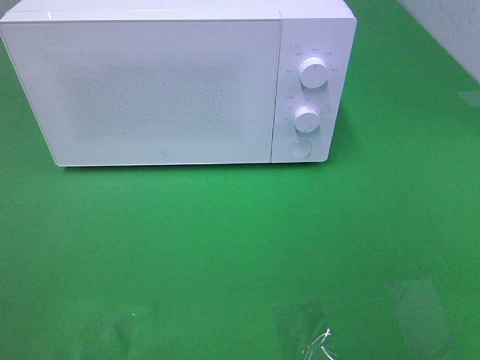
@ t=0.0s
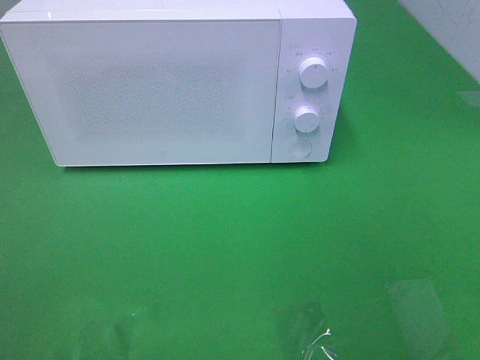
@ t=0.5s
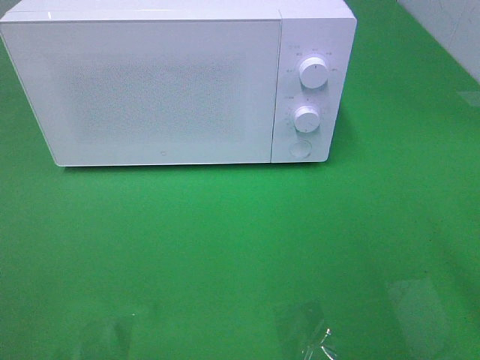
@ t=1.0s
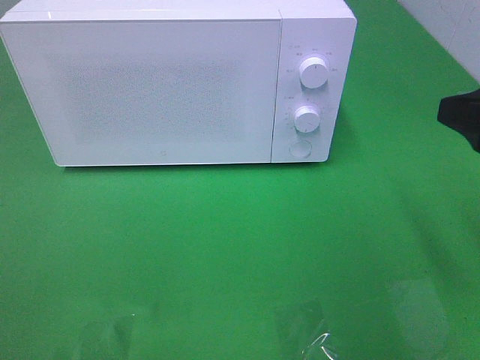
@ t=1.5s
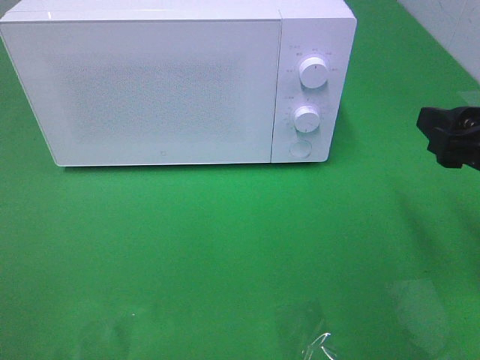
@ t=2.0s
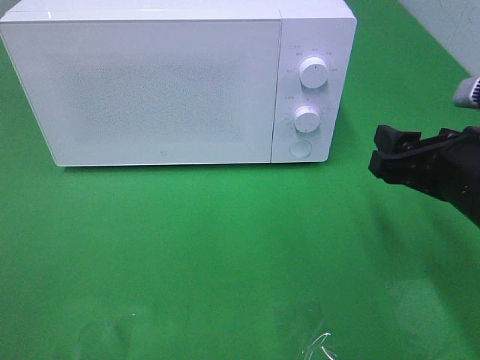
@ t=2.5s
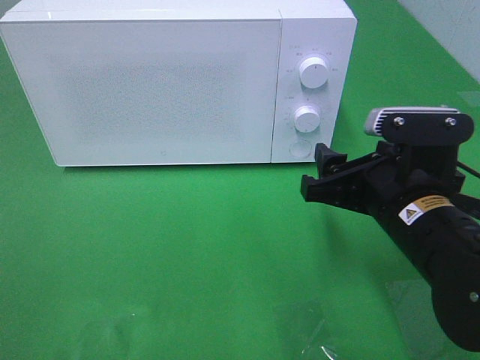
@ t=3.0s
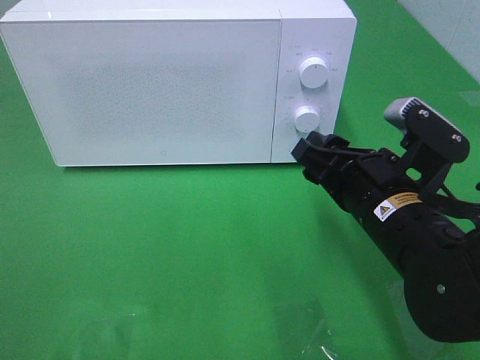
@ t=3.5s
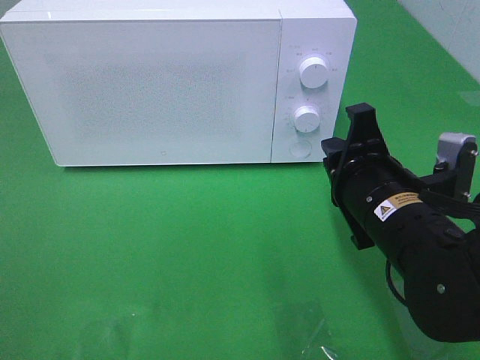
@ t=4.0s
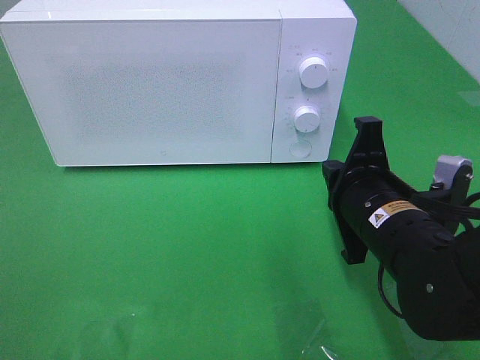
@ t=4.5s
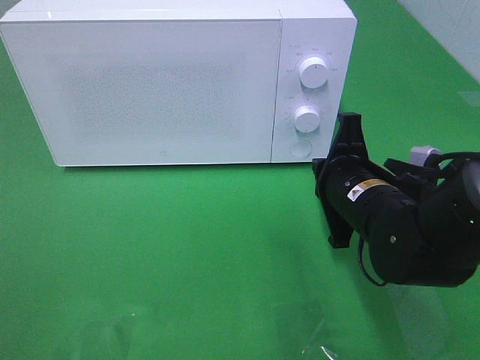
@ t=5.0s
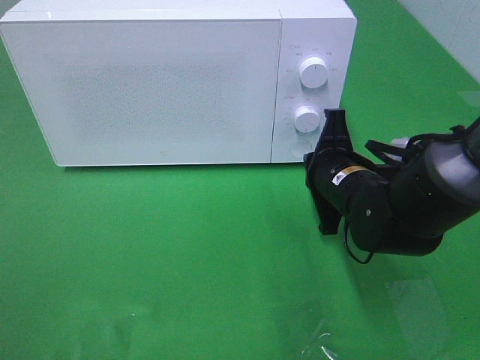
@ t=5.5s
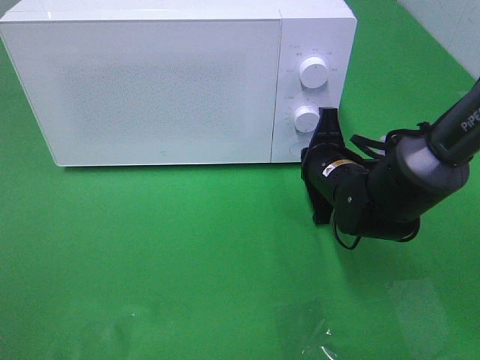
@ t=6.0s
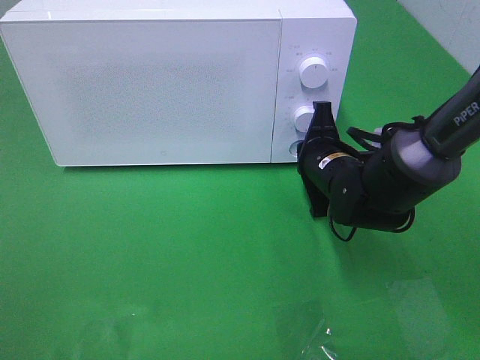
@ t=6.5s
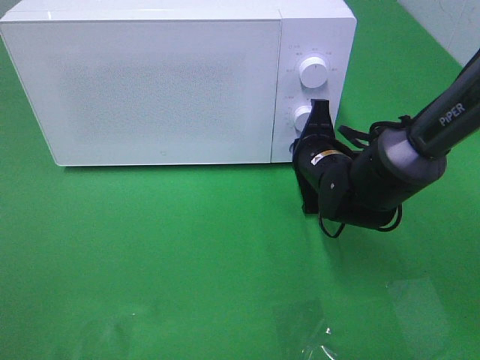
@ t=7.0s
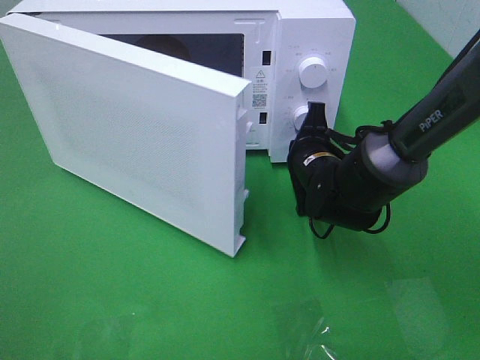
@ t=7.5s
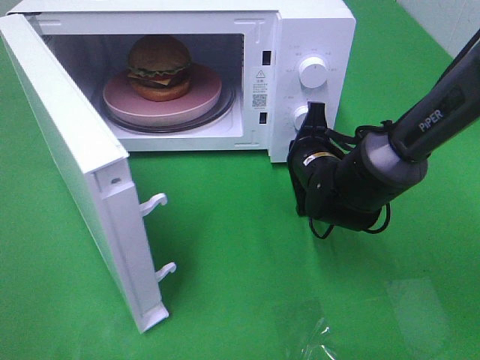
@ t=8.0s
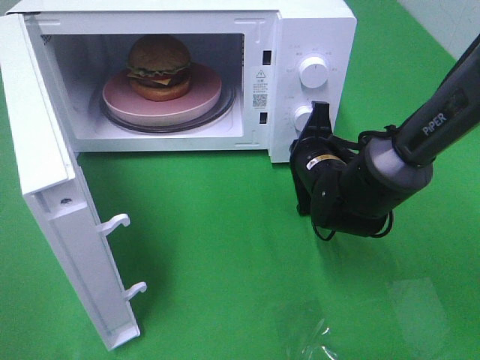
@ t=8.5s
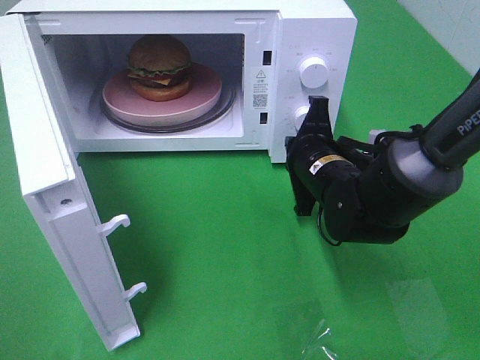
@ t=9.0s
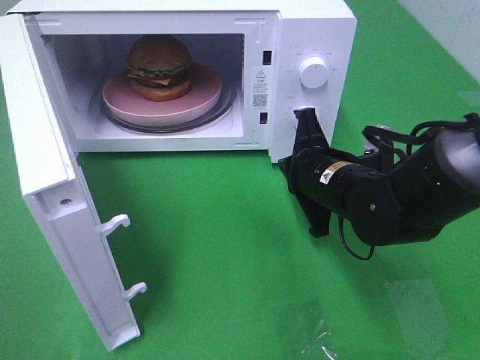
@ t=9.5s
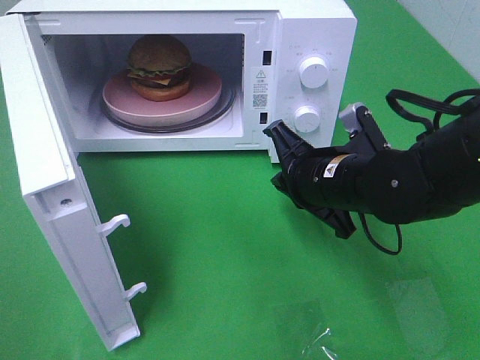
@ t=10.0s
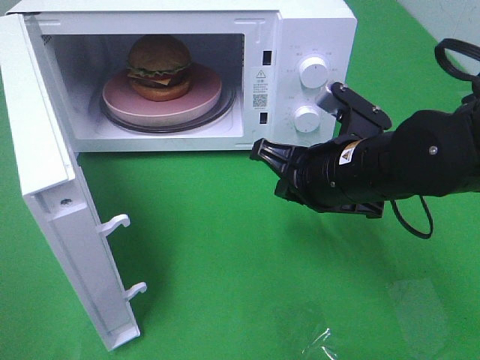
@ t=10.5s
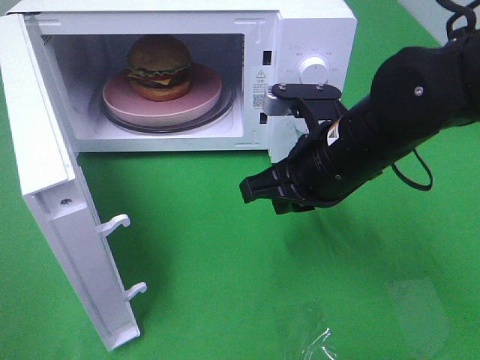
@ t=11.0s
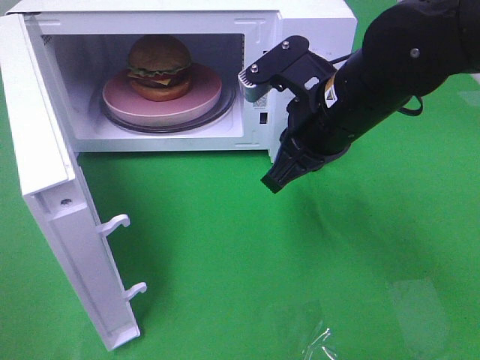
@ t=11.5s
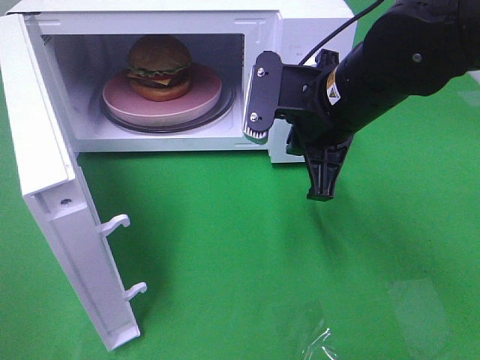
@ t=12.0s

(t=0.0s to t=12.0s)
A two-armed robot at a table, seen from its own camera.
Task of the whole recording: Heat the burger.
Step, t=0.0s - t=9.5s: Right hand: press the switch.
t=0.0s - t=2.0s: The right gripper goes approximately 20 cm forward.
t=2.0s - t=4.0s: The right gripper shifts roughly 15 cm to the left and downward, and closes up.
t=4.0s - t=6.0s: The right gripper heads forward and downward, covering some 15 cm.
t=8.0s - t=10.0s: The right gripper is displaced backward and upward by some 10 cm.
t=10.0s - t=12.0s: The right gripper moves upward, roughly 10 cm.

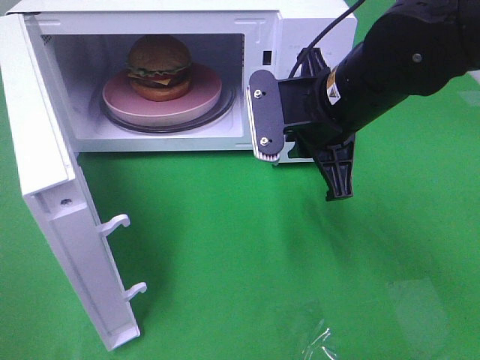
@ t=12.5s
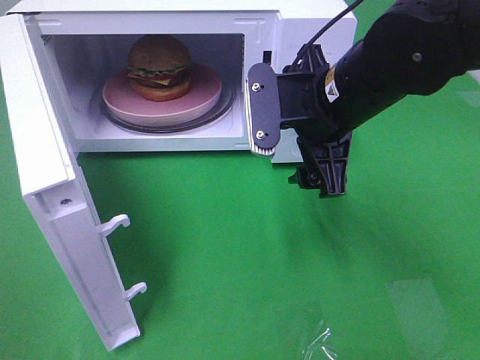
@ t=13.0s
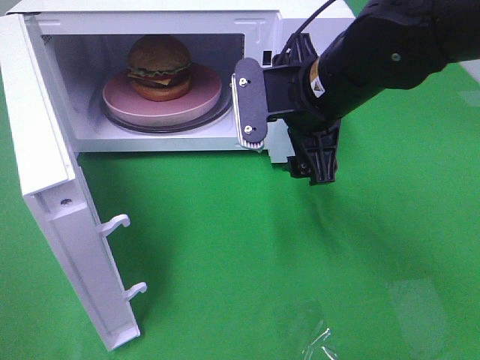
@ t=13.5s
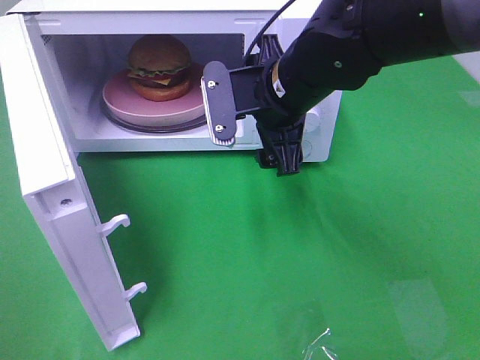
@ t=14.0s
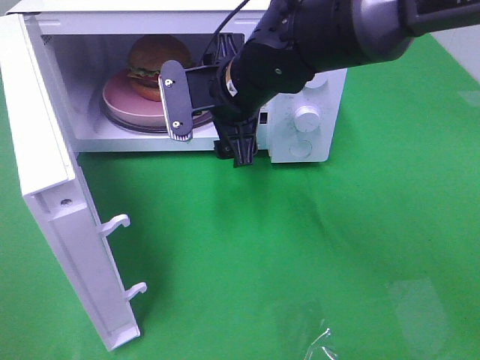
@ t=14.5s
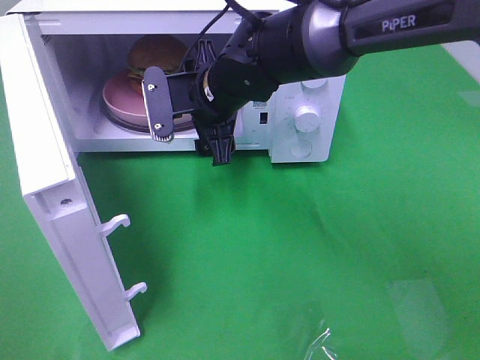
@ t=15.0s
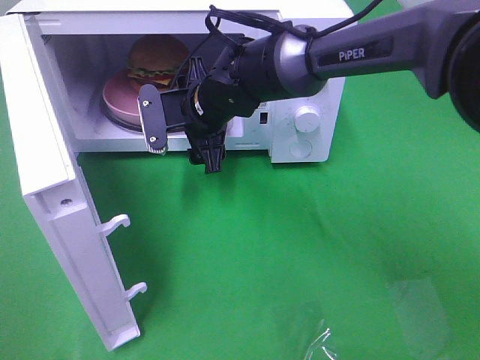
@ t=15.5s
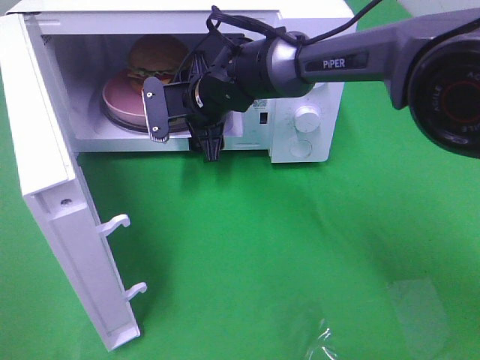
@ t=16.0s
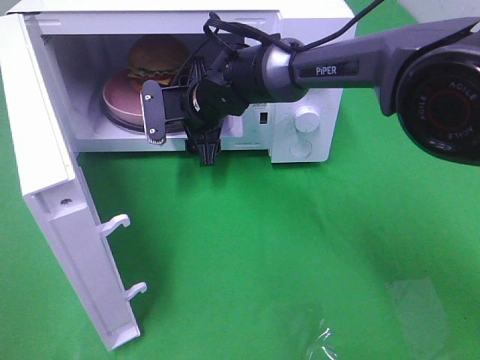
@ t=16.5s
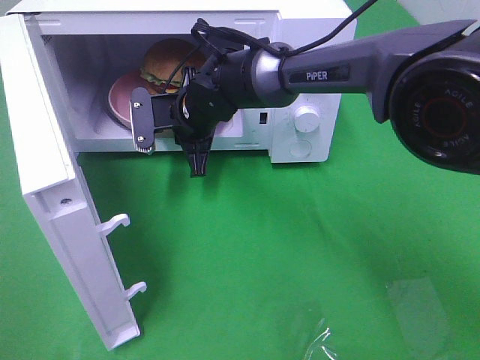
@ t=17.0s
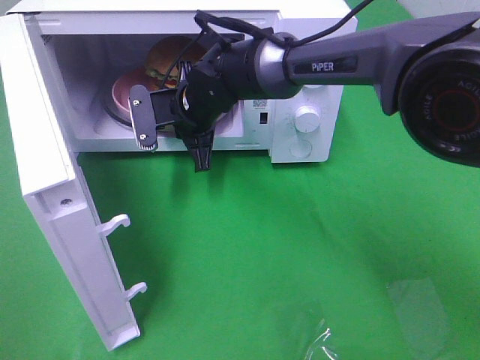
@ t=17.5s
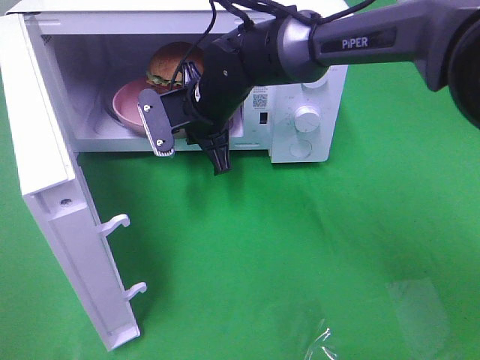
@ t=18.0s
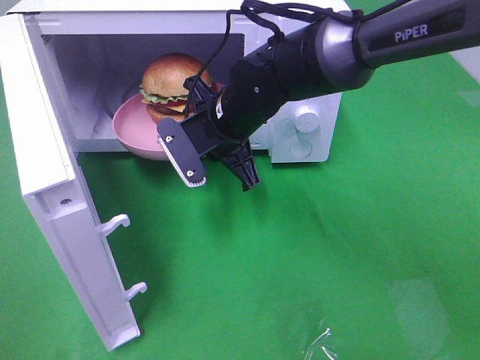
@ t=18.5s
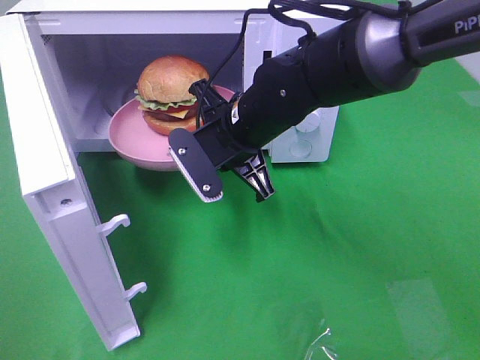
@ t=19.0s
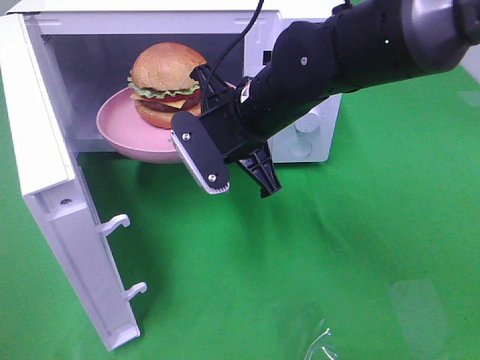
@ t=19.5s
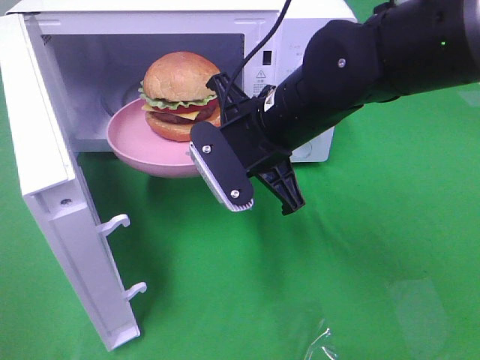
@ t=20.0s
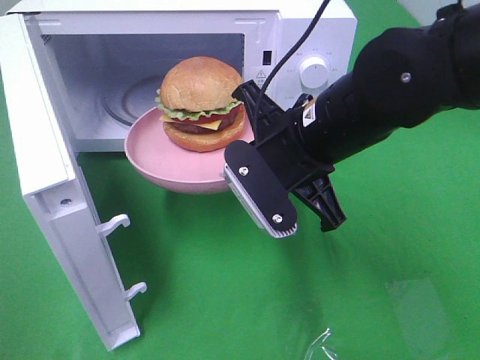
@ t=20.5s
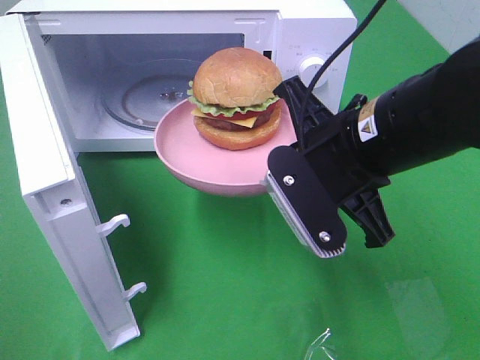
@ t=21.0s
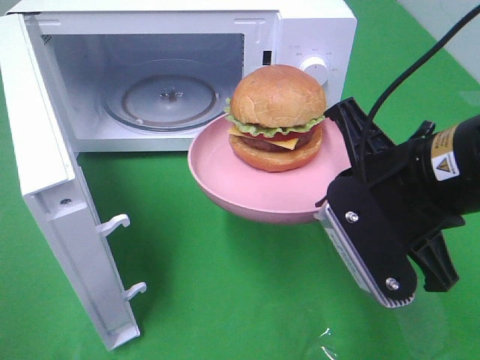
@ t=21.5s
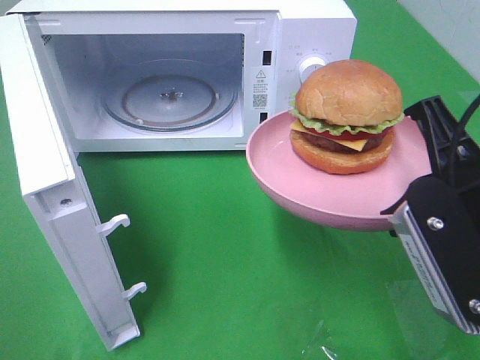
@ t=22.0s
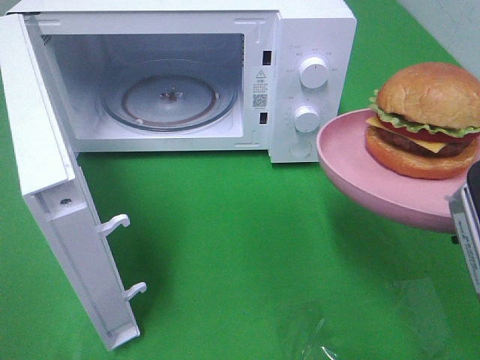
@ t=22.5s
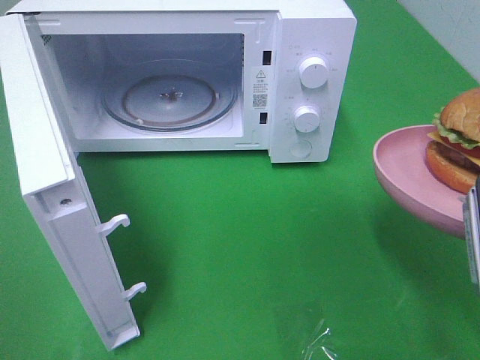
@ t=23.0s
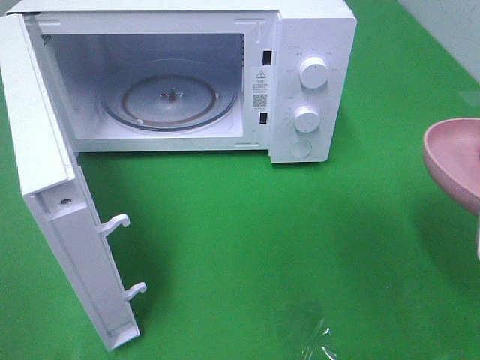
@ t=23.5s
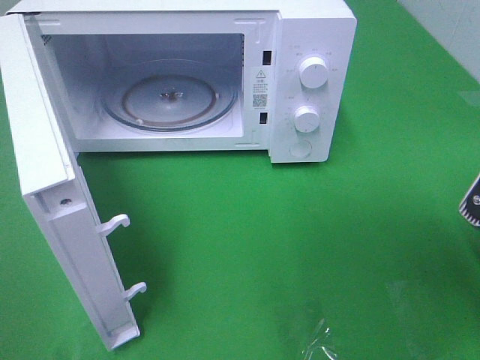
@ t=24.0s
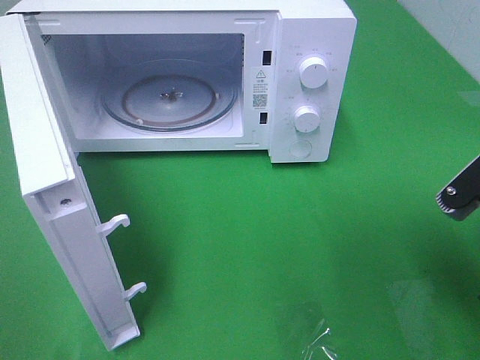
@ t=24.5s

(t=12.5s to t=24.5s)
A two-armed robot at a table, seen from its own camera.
Task of the whole recording: Heat the burger.
Step, t=12.5s - t=17.5s: Right hand: grab the plate with the hamburger.
t=12.5s - t=14.5s: The right gripper goes approximately 10 cm to the left and forward, and opens.
t=14.5s - t=16.5s: The right gripper shifts approximately 10 cm forward and downward.
t=16.5s - t=18.5s: The right gripper heads backward, covering approximately 5 cm, and closes up.
t=18.5s - t=20.5s: The right gripper shifts approximately 15 cm backward, to the right and upward.
t=20.5s - t=22.5s: The right gripper shifts approximately 20 cm to the right and backward.
t=22.5s - t=24.5s: The right gripper is displaced downward by approximately 5 cm.

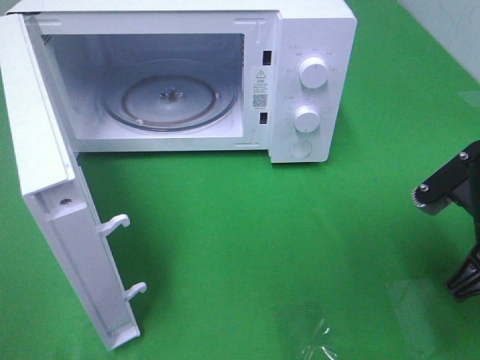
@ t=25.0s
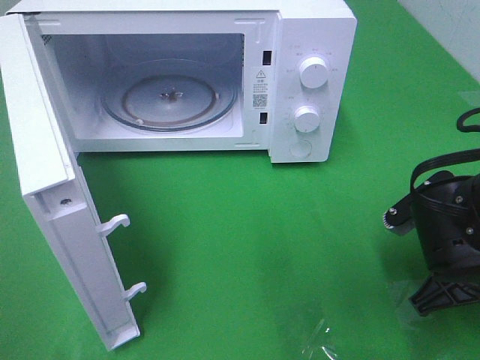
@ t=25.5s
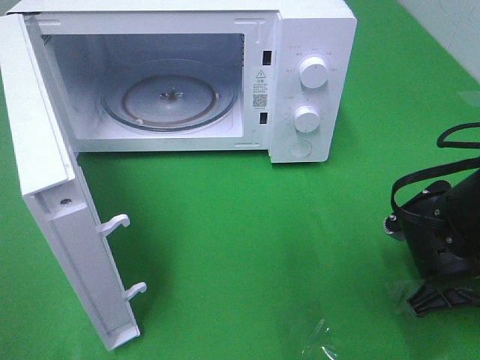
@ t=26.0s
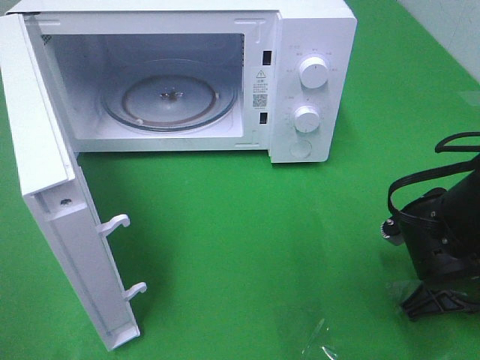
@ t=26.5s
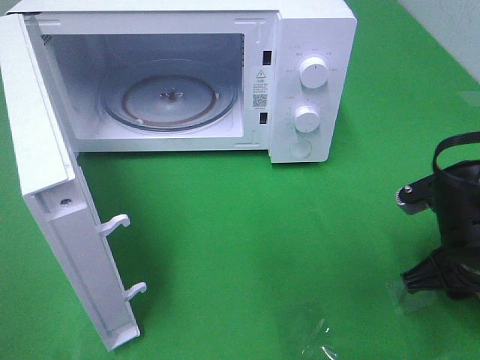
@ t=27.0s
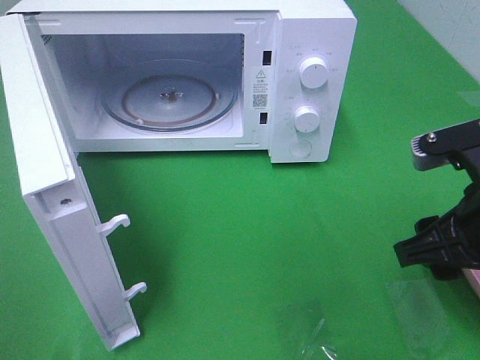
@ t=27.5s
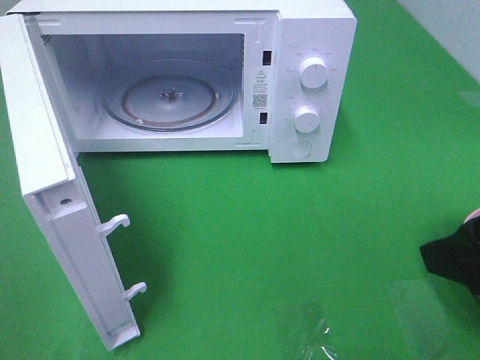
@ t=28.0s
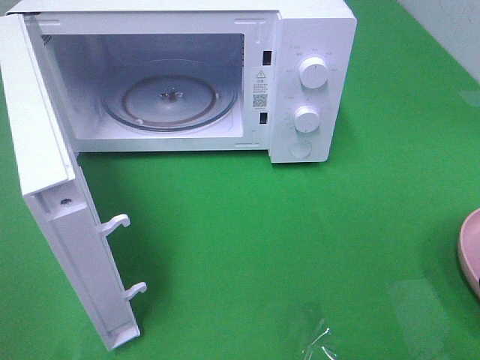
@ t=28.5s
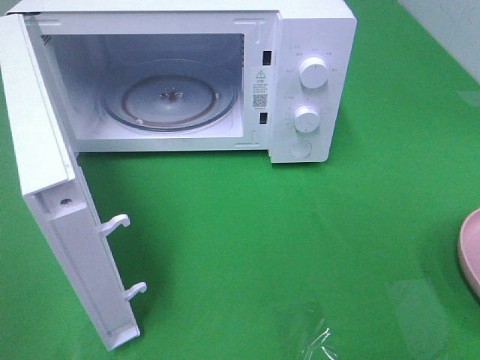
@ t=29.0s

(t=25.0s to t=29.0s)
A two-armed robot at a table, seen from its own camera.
Task of the whole recording: Heat the burger.
Step, t=25.0s - t=27.5s: Right hand: place the plate on the table.
t=25.0s - t=27.0s: The right gripper opens.
t=27.0s - t=29.0s: The right gripper moves upward, backward and to the right, about 25 cm.
